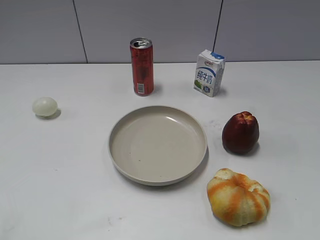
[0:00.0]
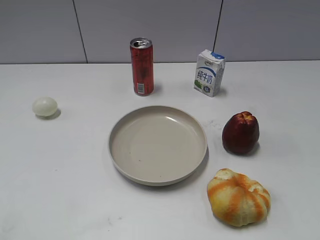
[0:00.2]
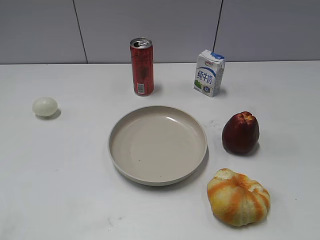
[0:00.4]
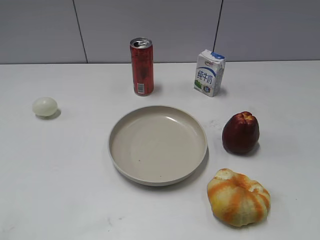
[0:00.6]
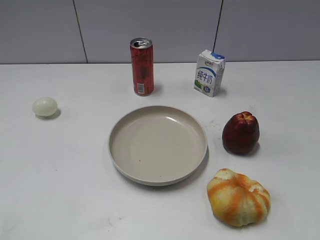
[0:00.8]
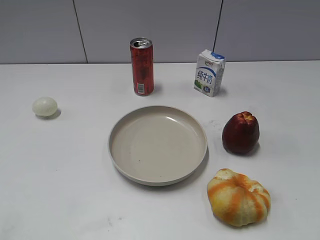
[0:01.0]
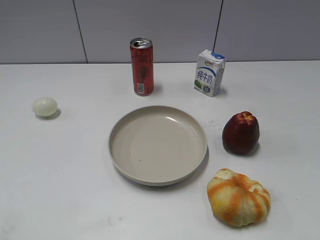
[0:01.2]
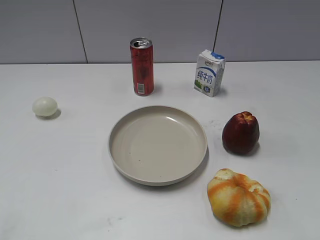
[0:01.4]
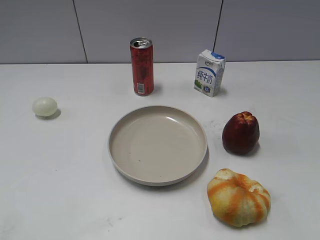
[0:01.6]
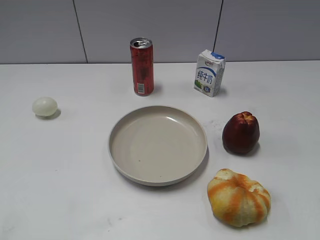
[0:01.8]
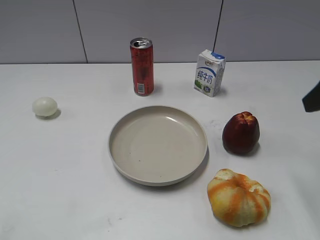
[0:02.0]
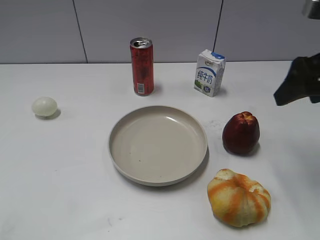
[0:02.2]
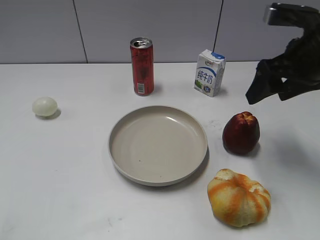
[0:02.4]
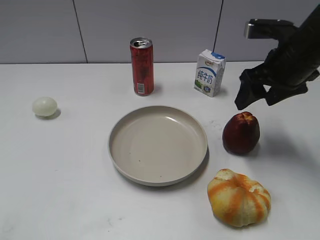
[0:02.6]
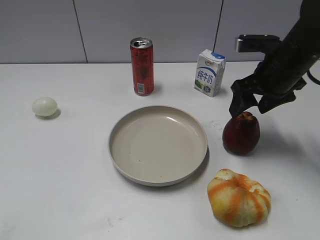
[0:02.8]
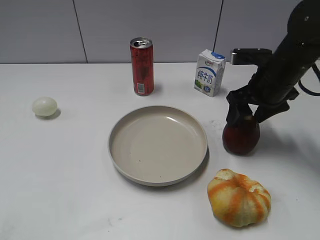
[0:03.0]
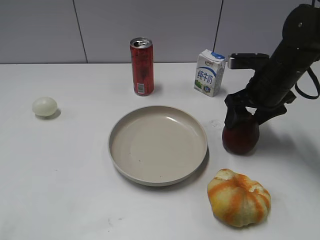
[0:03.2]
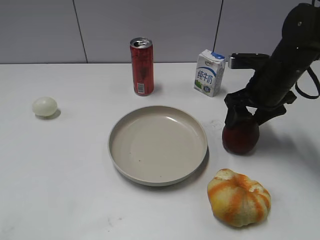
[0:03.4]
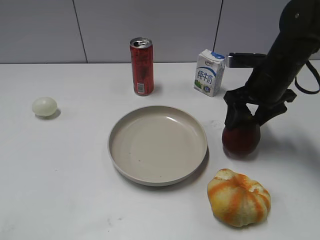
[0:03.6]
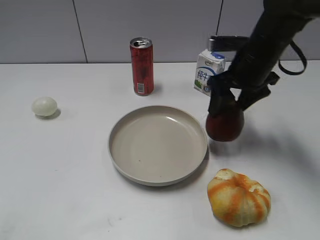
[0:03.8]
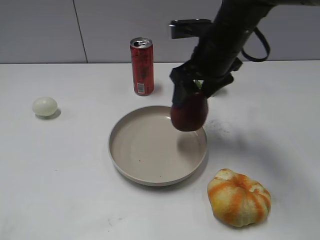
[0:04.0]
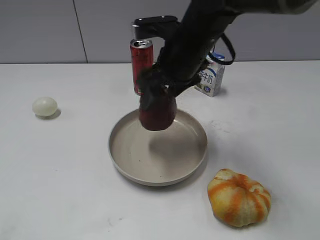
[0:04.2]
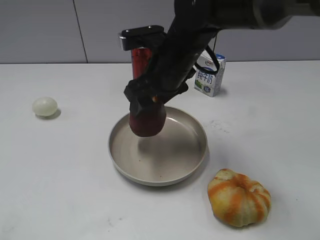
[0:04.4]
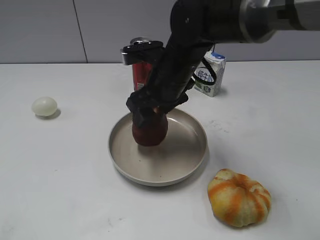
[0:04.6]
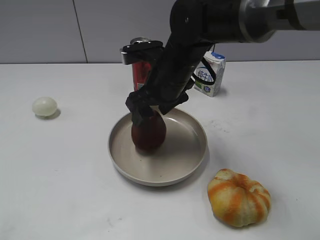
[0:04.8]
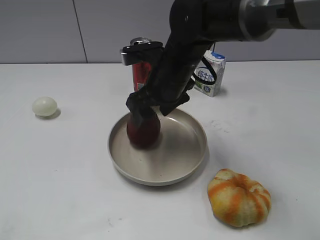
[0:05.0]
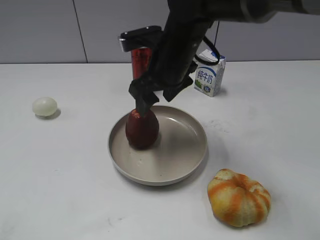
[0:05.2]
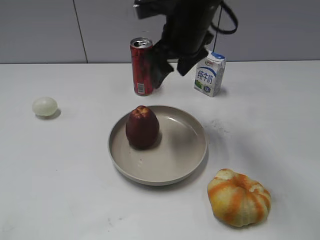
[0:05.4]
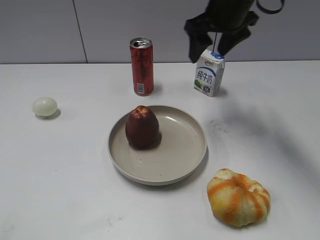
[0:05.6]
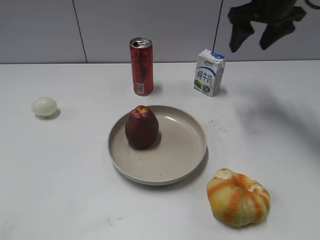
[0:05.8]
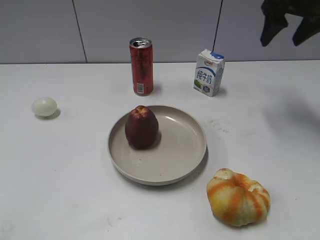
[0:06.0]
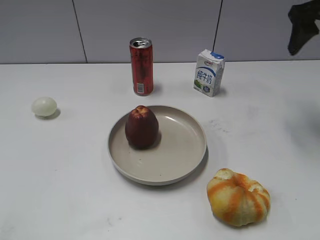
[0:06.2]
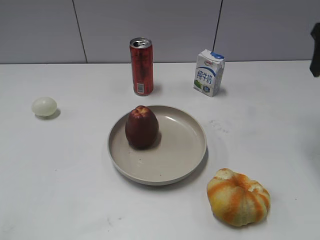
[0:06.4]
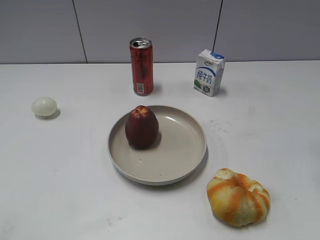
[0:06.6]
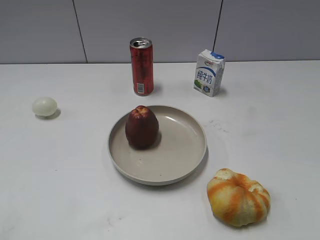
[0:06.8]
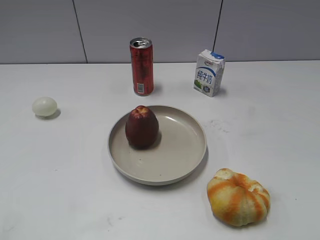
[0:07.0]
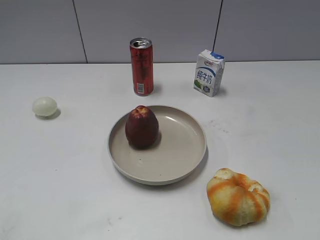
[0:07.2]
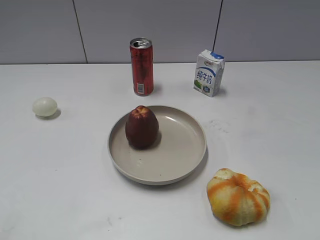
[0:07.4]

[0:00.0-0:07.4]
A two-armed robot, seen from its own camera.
Step, 0:02.0 to 0:03.2: Grasp the apple with right gripper.
Step, 0:03.6 to 0:05.2: Place the apple on the plate with right gripper.
0:01.4 to 0:03.0: The right gripper goes roughly 30 cm forward and downward.
0:03.0 to 0:04.4: The right gripper is displaced to the left by some 20 cm.
0:04.4 to 0:06.0: The right gripper is displaced to the right and upward by about 25 cm.
0:06.0 to 0:07.4: The right gripper heads backward, covering about 40 cm.

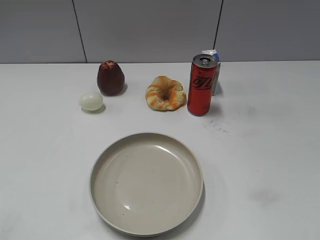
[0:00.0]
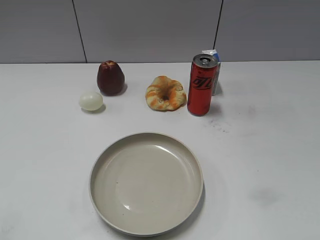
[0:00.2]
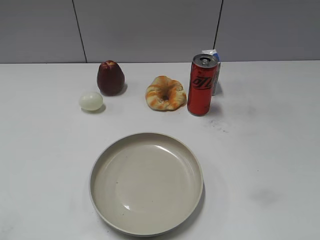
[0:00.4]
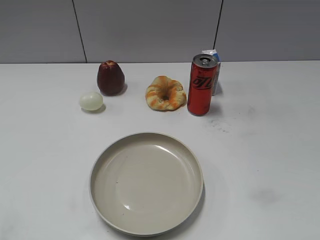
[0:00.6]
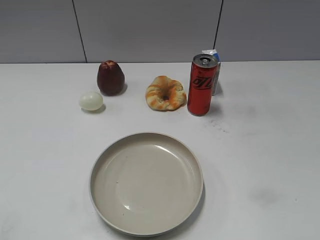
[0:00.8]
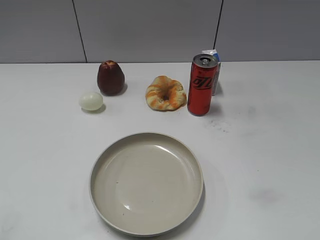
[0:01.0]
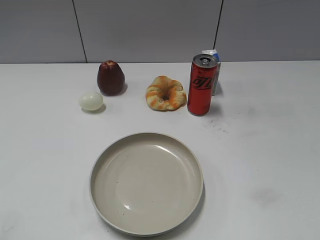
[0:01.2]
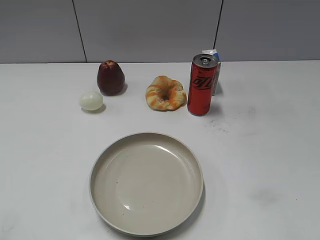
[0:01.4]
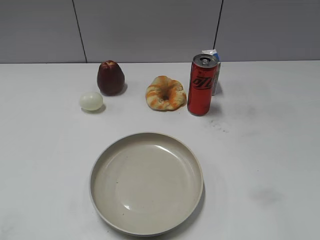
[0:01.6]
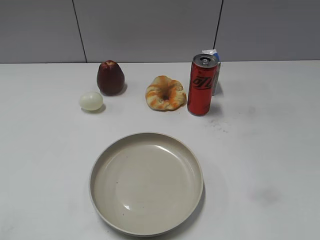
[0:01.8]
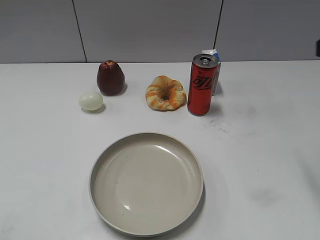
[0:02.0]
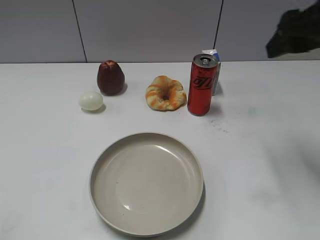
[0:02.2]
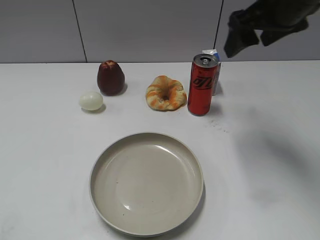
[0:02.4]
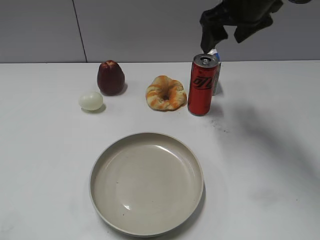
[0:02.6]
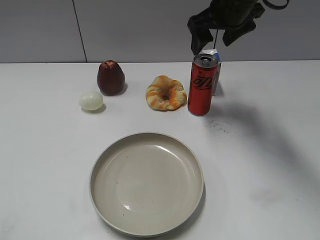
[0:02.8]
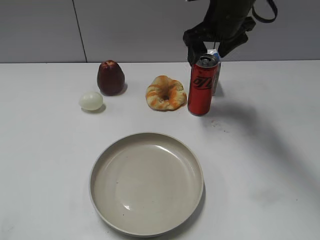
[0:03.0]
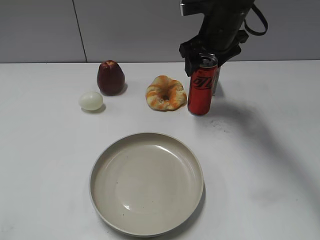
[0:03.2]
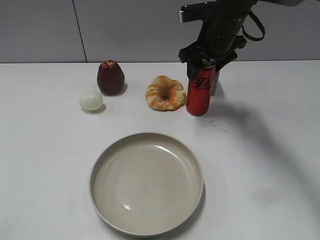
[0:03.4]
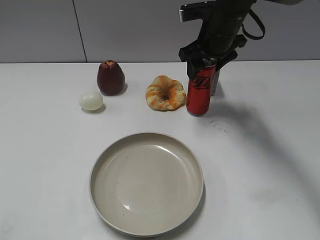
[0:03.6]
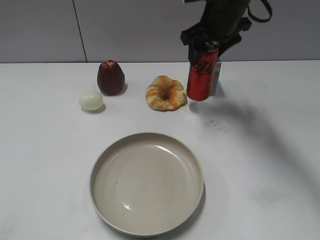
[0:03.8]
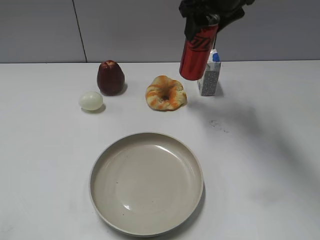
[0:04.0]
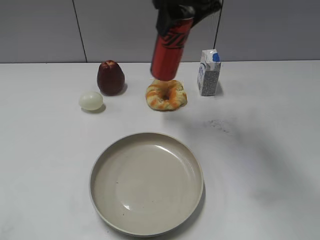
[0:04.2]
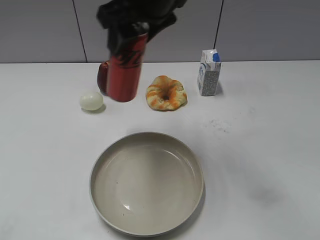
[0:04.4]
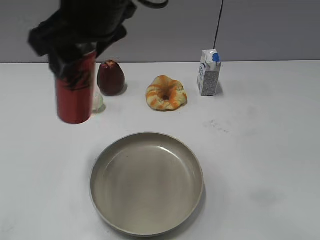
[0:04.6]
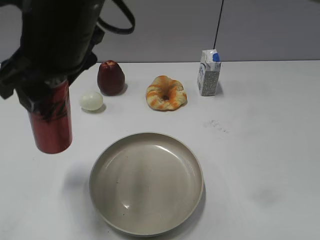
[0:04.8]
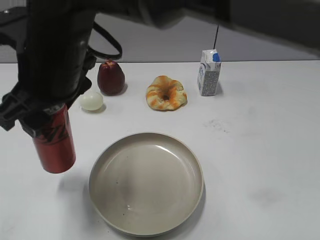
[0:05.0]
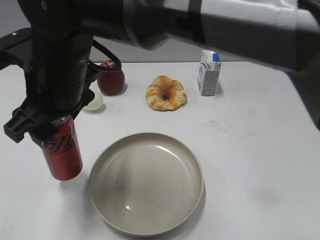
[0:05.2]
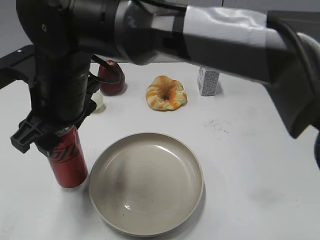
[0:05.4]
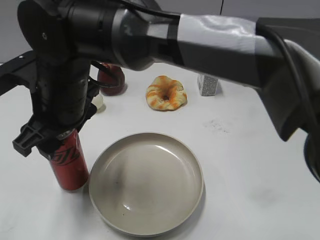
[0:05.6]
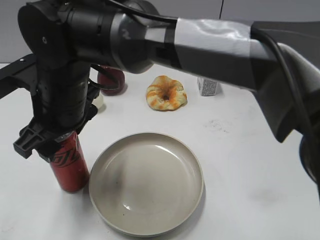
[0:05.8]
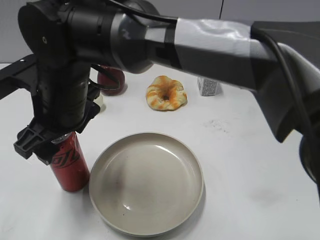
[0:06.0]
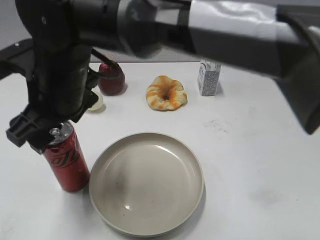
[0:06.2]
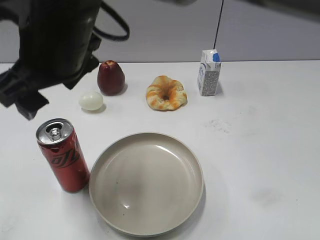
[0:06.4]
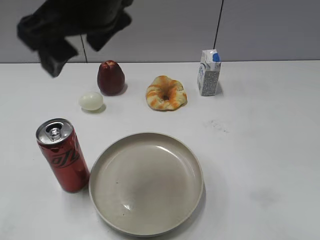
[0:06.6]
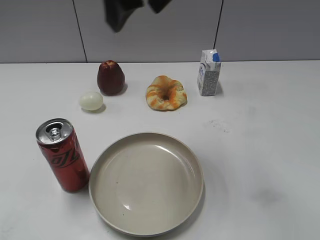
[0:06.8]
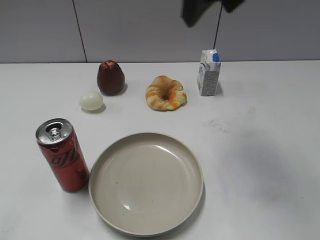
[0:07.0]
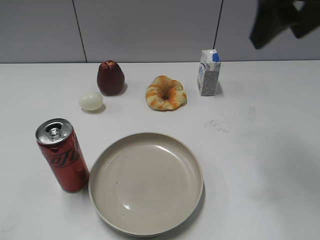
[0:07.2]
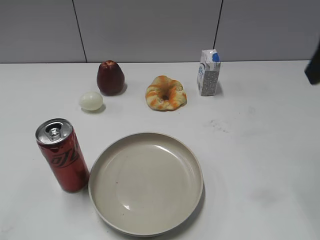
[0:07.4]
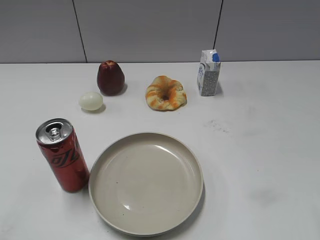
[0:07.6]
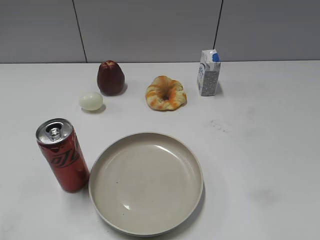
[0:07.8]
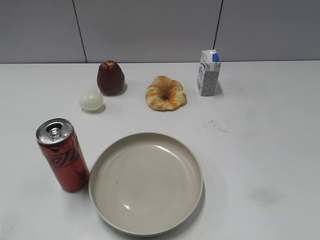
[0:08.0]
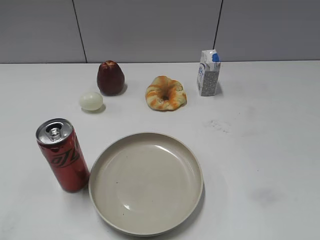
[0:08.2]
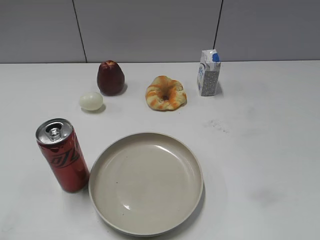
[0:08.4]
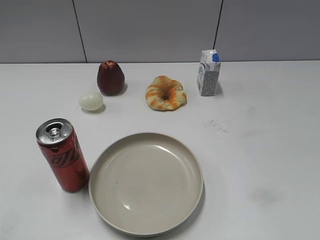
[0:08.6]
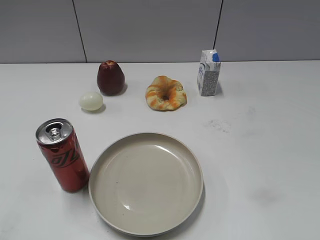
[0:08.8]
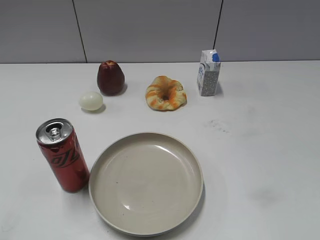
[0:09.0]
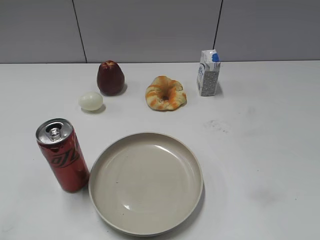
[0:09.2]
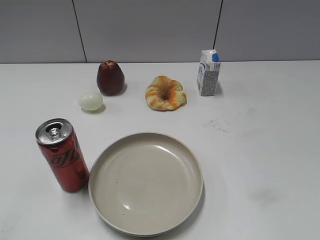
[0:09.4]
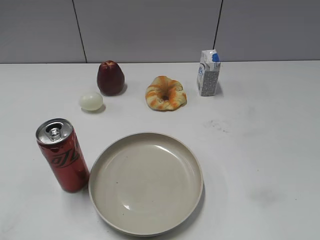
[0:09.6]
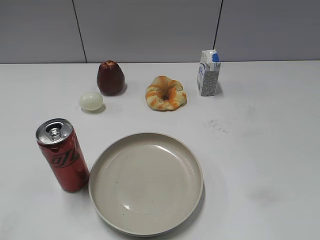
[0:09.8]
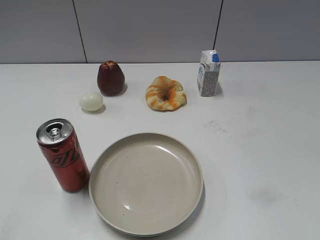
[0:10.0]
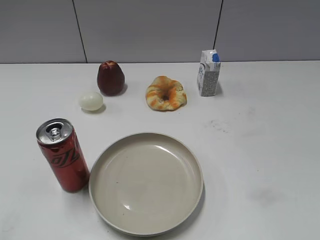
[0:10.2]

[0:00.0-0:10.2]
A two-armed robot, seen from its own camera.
Step, 0:01.0 to 0:03.4: Grasp the cola with right gripper.
Step, 0:03.6 to 0:06.2: Place the cola on the table with right gripper.
0:01.4 to 0:03.0: The right gripper heads forward and to the left, covering roughly 40 cm, and opens its fingers.
0:03.0 to 0:04.4: The right gripper travels to the left, backward and upward by approximately 20 cm, and closes.
0:04.4 to 0:05.8: The right gripper travels downward, to the left and backward by approximately 20 cm, and opens its fingers.
0:05.8 to 0:07.2: The right gripper moves to the right and upward, approximately 35 cm.
0:07.2 to 0:08.8: The right gripper goes about 25 cm backward, to the right and downward.
